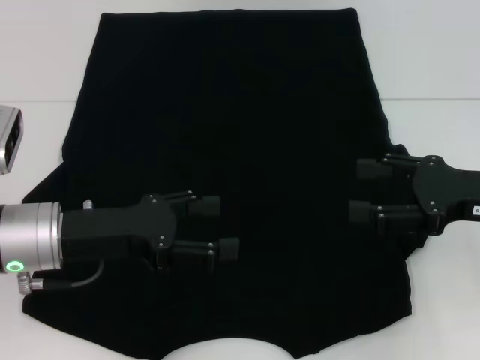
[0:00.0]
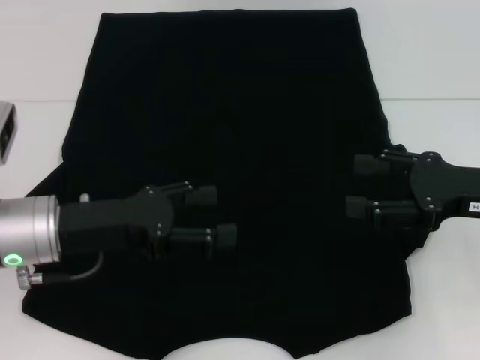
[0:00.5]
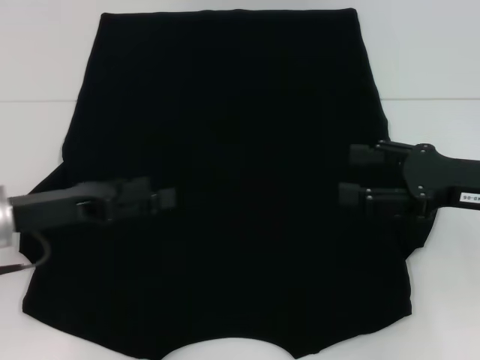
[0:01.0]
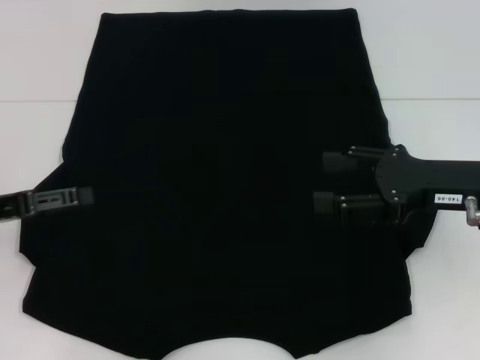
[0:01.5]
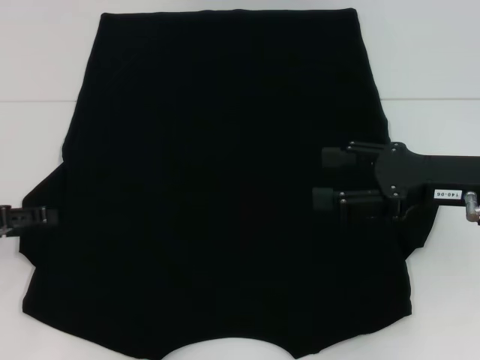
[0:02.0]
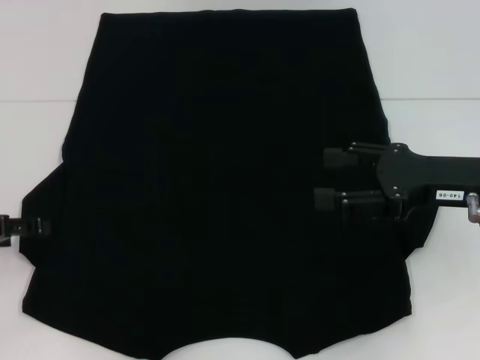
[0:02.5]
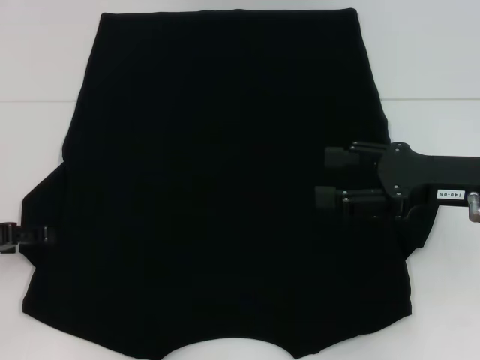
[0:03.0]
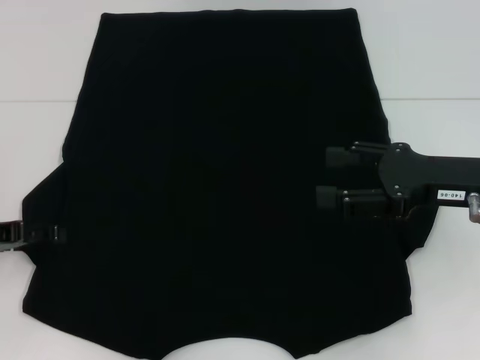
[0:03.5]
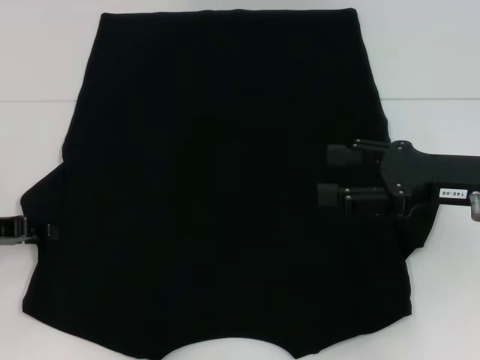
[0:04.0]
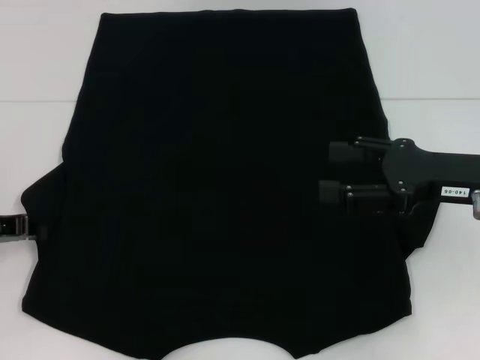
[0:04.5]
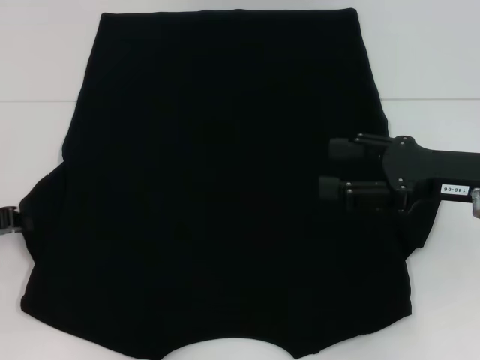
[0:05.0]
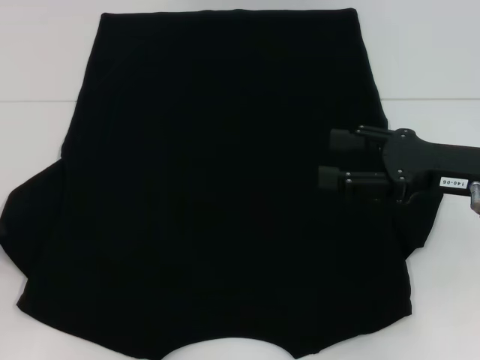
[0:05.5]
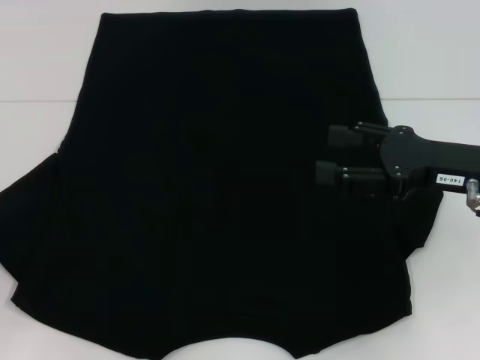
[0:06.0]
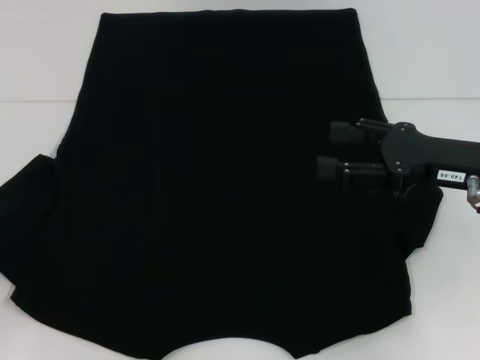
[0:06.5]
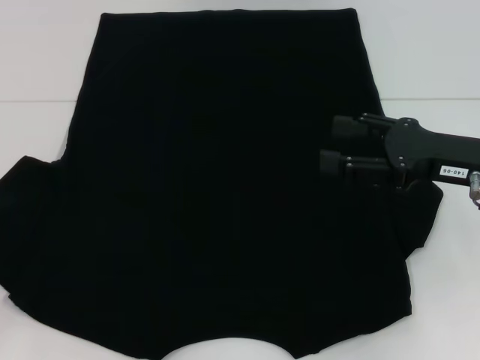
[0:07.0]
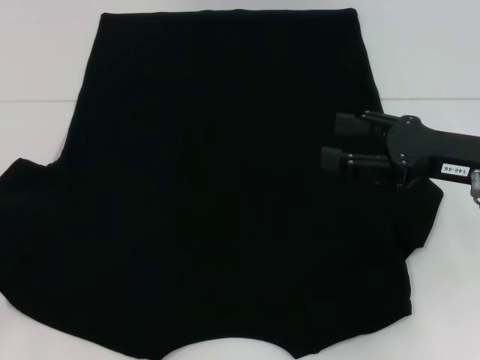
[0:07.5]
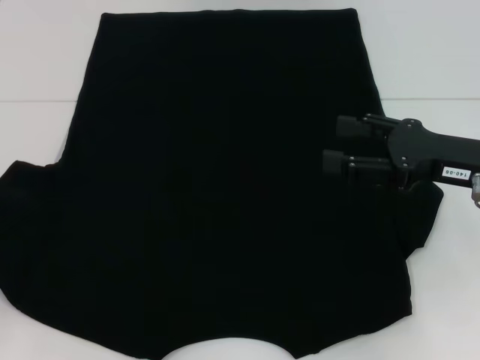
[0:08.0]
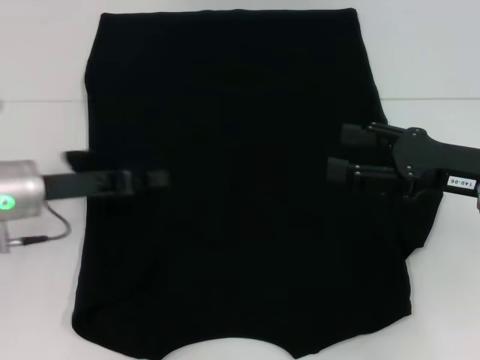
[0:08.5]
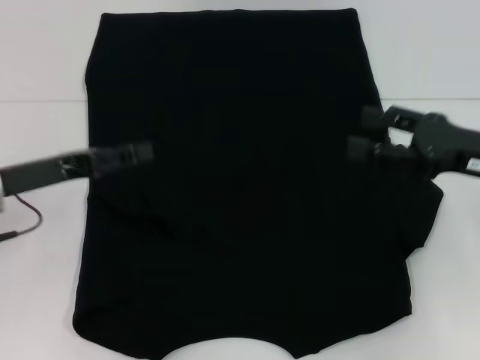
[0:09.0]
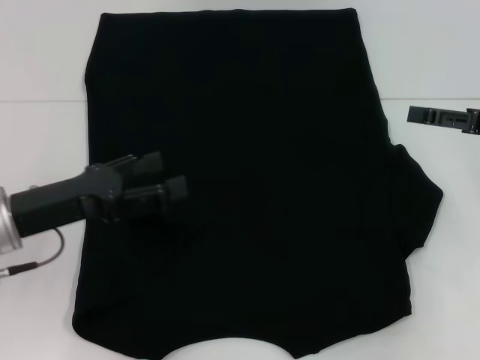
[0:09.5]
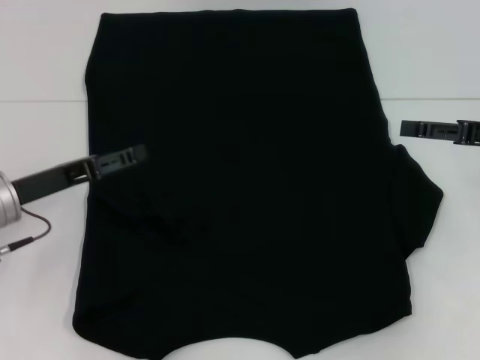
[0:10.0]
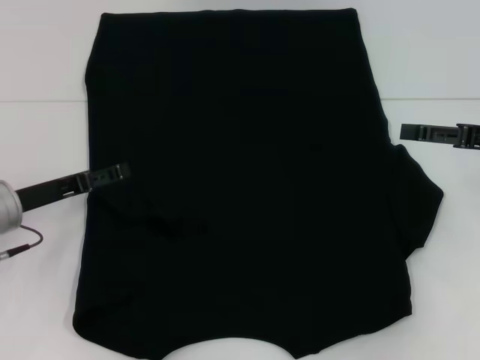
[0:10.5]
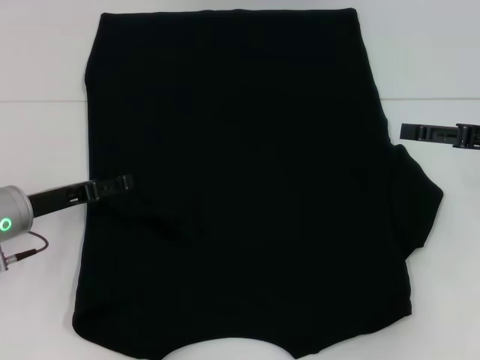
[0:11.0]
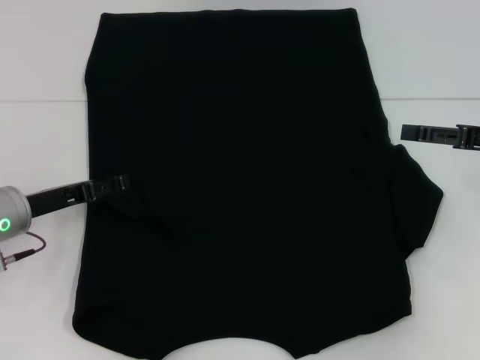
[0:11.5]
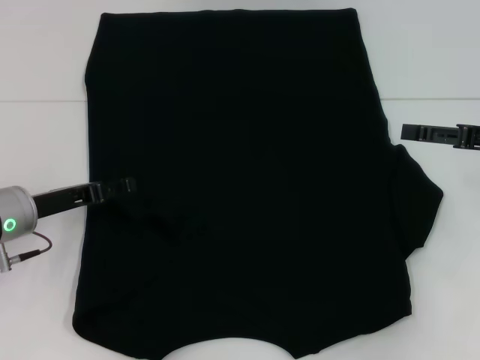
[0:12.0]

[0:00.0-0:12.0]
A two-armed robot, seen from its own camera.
Step, 0.0 to 11.0 s: Fold the bottom left sleeve with your left hand.
0.0 to 2.0 s: The left gripper travels to the left by about 15 cm.
2.0 to 4.0 s: The left gripper closes up.
4.0 to 6.0 s: The left gripper changes place by approximately 5 cm, and closes.
6.0 to 8.0 s: There are only small adjustments of the grippers.
8.0 to 10.0 s: The left gripper travels to the right and forward by some 15 cm, and opens its fingers; the right gripper goes roughly 5 cm to the right.
10.0 to 12.0 s: The grippers move only a little.

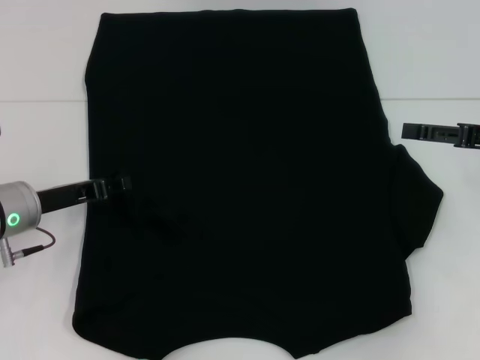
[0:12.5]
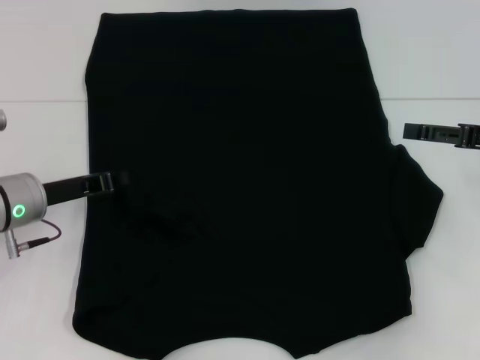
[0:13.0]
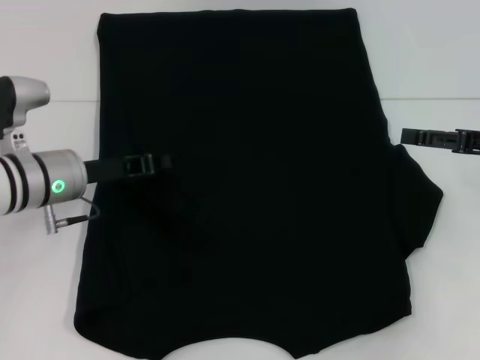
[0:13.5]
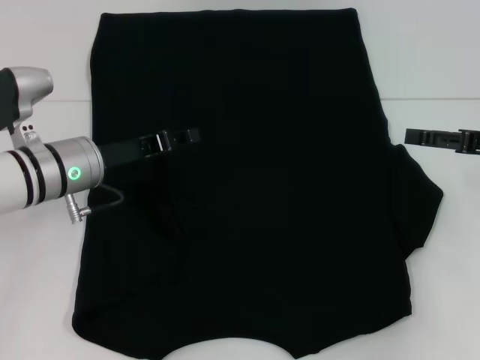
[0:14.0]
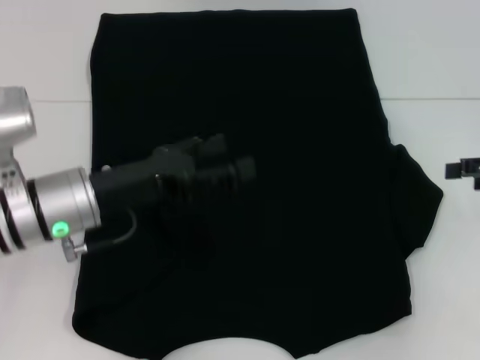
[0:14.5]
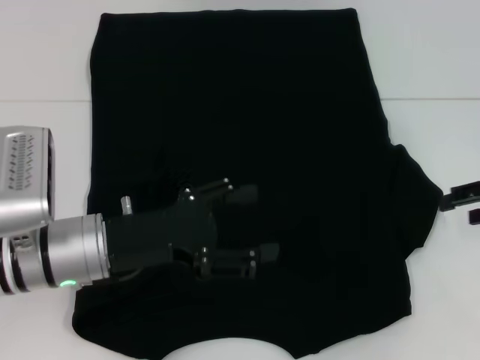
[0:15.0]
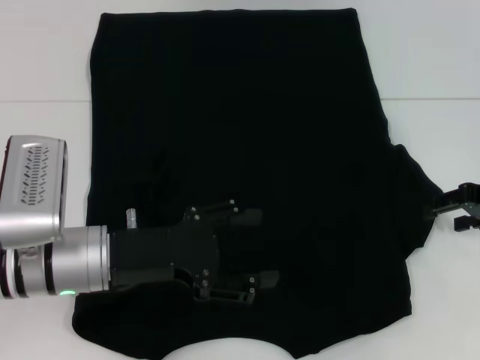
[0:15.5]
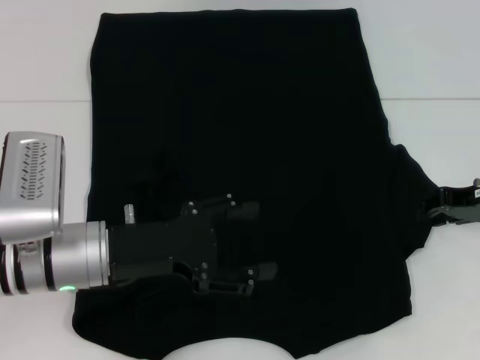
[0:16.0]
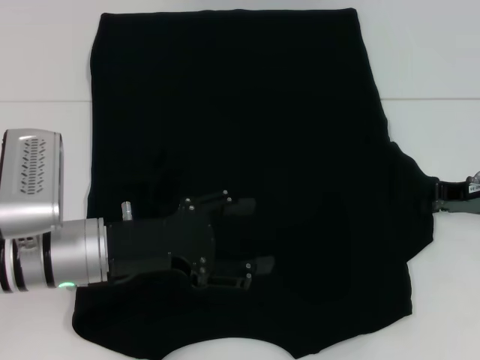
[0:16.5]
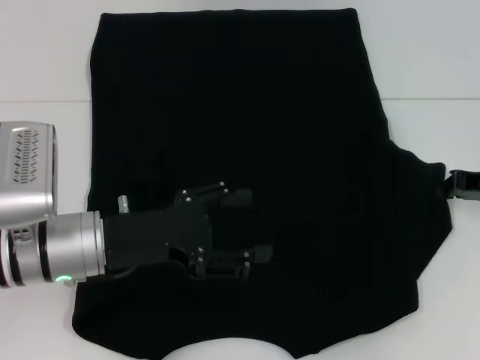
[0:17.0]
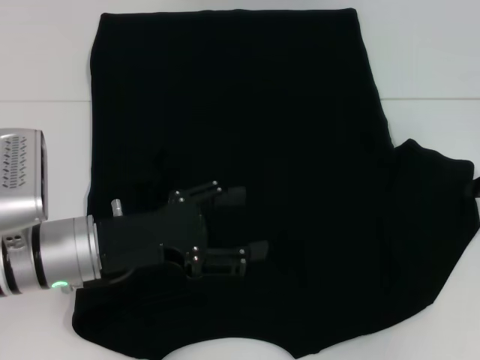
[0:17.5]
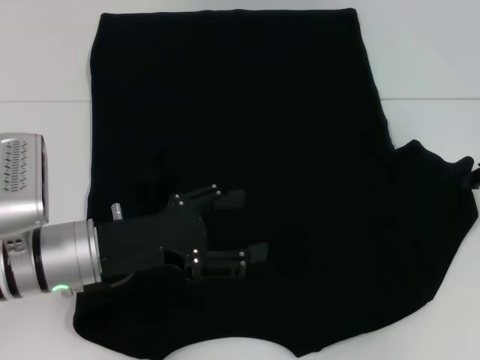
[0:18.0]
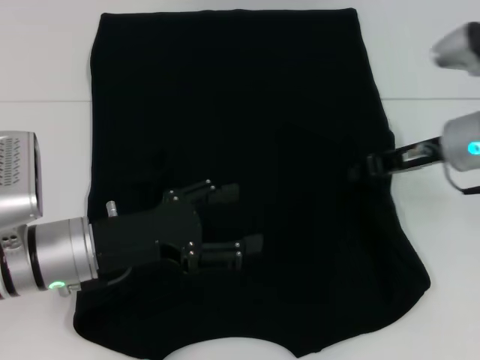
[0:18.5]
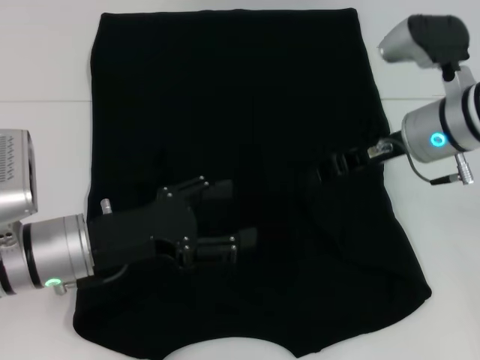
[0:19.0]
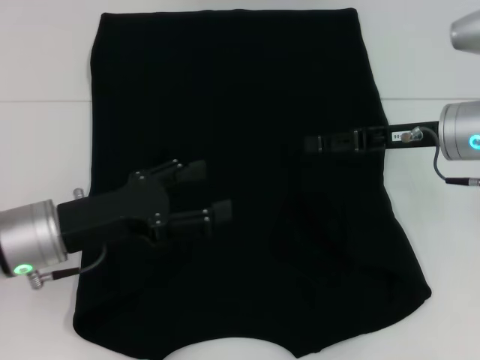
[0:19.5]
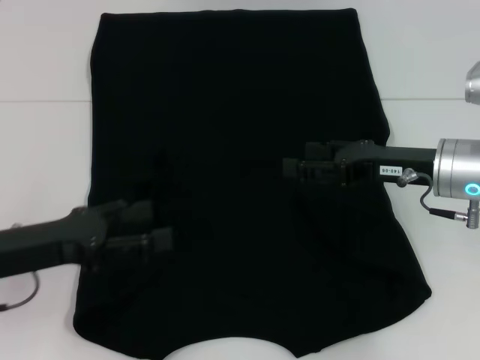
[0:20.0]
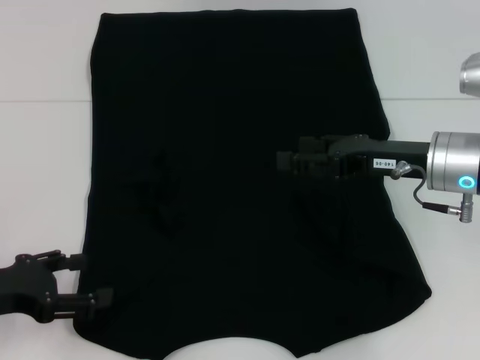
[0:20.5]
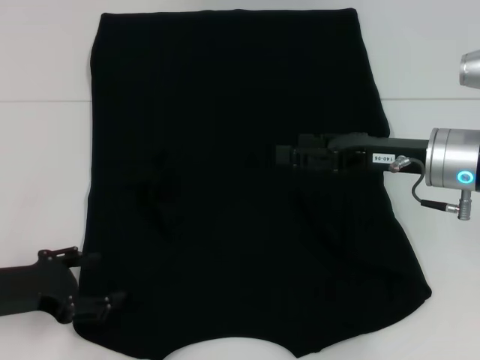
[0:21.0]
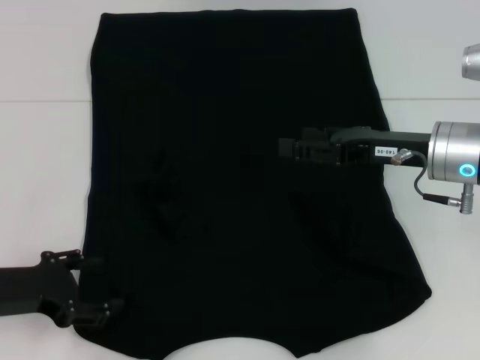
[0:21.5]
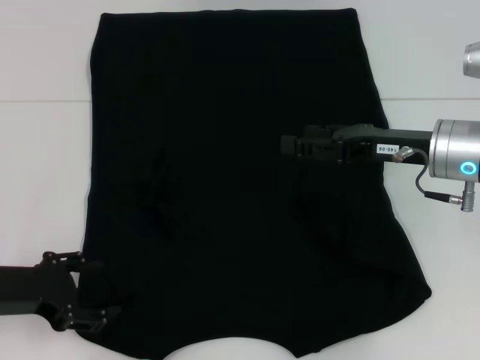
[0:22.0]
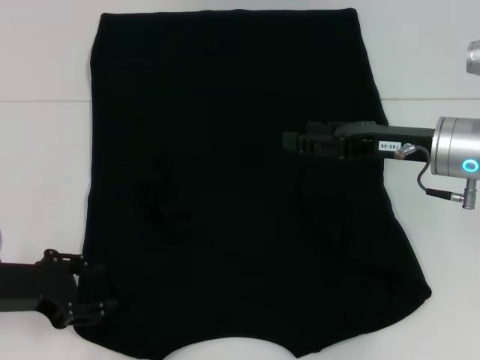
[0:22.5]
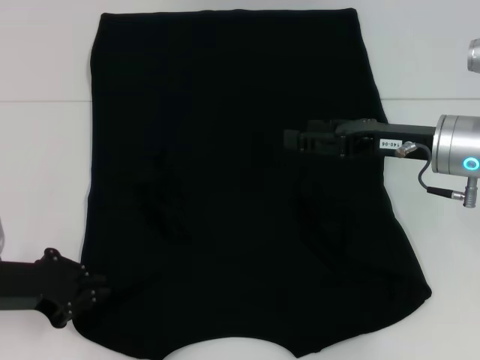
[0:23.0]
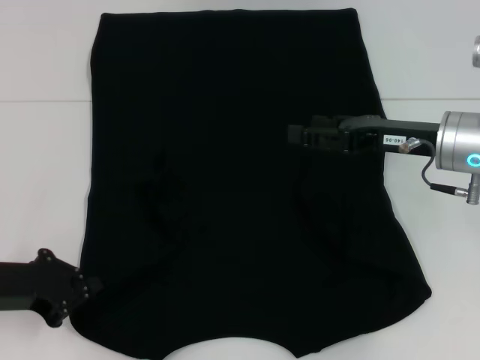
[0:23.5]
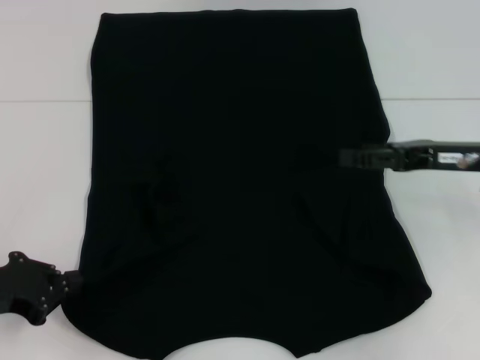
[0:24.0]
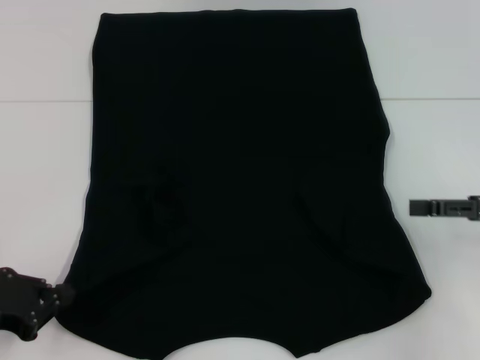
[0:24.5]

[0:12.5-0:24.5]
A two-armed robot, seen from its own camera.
Step, 12.5 to 19.5 s: Fold the bottom right sleeve with your right hand.
12.5 to 14.5 s: The left gripper is displaced to the right by roughly 5 cm, and closes, then opens again.
14.5 to 16.5 s: The right gripper shifts some 10 cm to the left and downward, and closes.
16.5 to 18.5 s: The right gripper shifts some 5 cm to the left.
18.5 to 20.5 s: The right gripper opens its fingers, while the left gripper goes some 10 cm to the left.
22.5 to 24.5 s: The left gripper ends up about 5 cm from where it was, and closes. Meanwhile the right gripper goes roughly 15 cm to the right and backward.

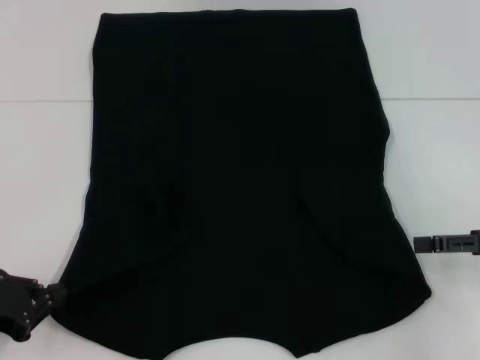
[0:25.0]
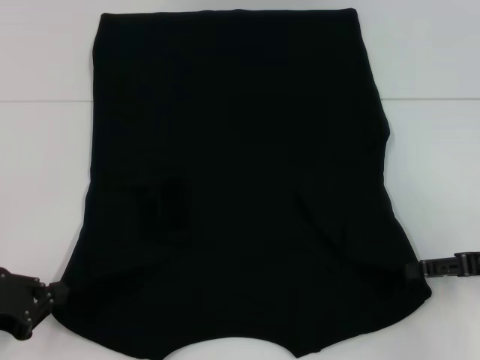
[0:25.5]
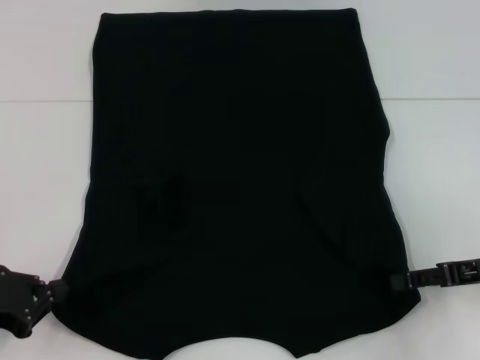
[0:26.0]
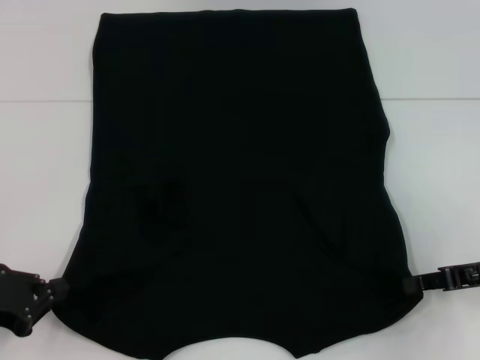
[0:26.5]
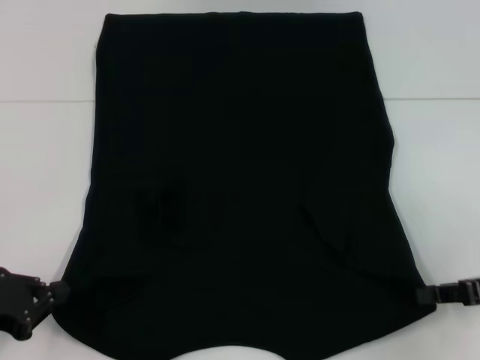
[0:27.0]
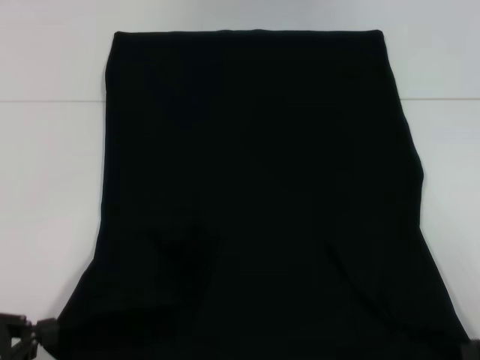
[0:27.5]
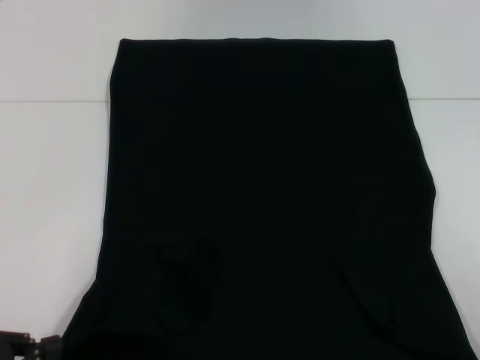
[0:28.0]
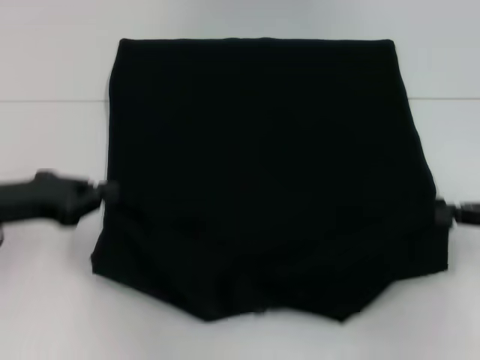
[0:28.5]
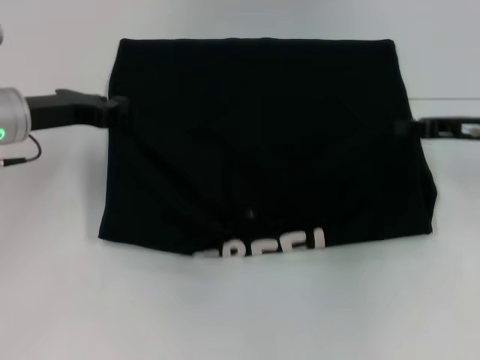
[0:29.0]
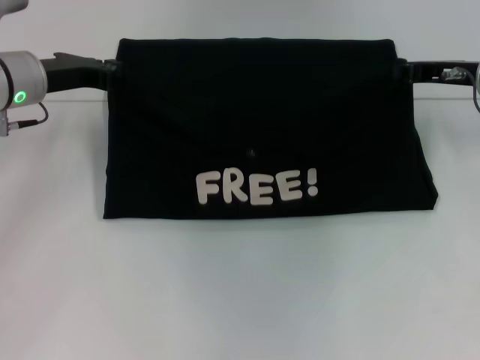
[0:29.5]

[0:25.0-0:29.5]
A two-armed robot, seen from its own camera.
25.0 to 27.0 s: The right gripper closes.
27.0 to 29.5 s: The right gripper heads forward and upward, covering about 20 cm. The left gripper moves forward, some 20 cm.
